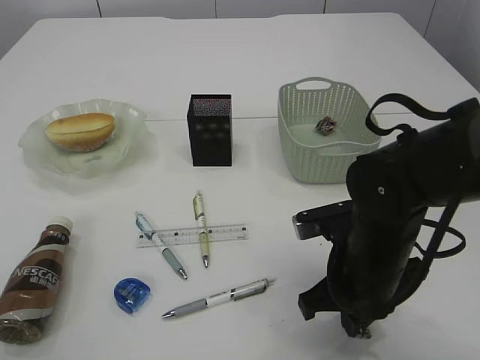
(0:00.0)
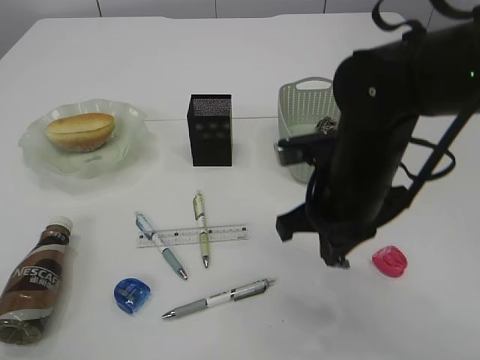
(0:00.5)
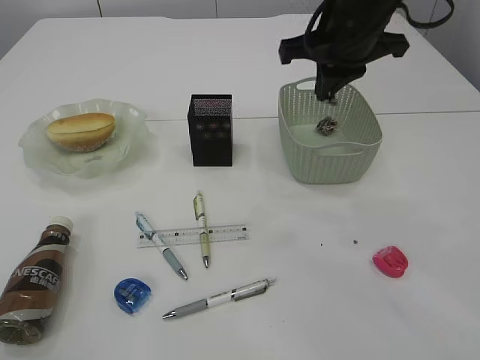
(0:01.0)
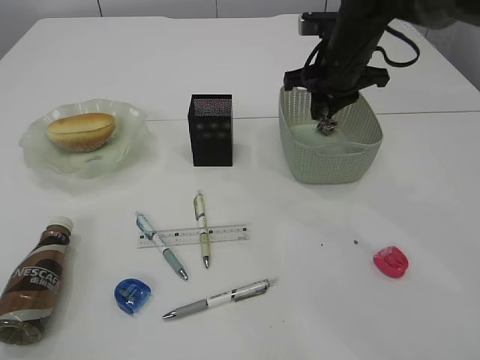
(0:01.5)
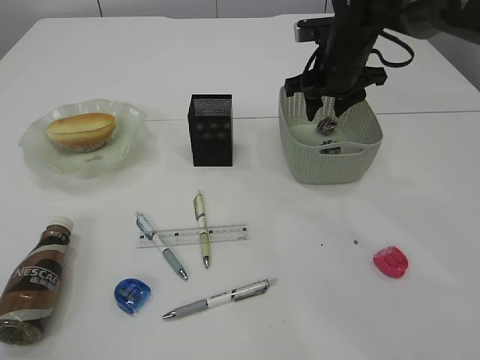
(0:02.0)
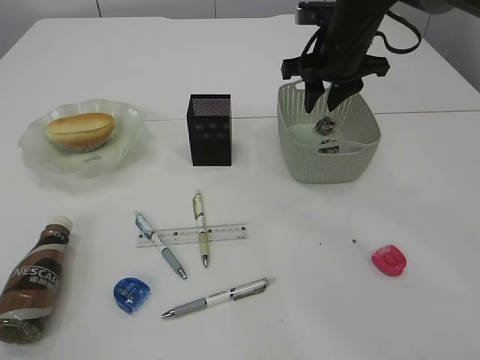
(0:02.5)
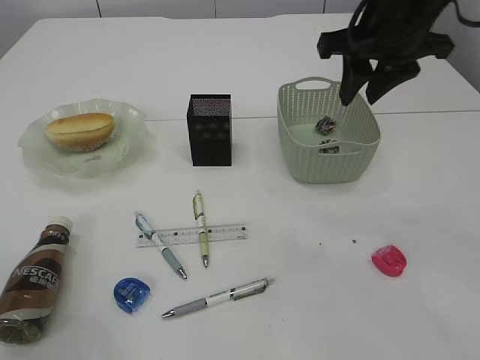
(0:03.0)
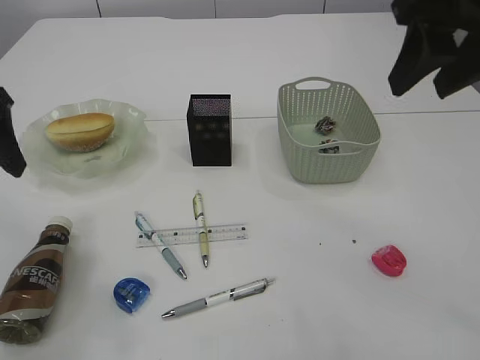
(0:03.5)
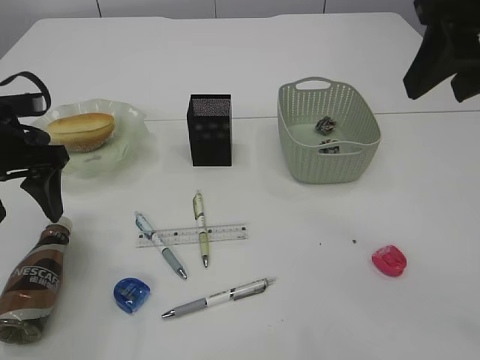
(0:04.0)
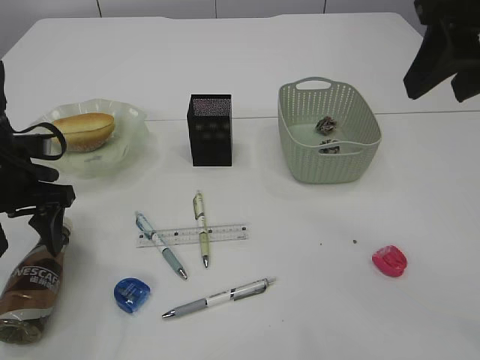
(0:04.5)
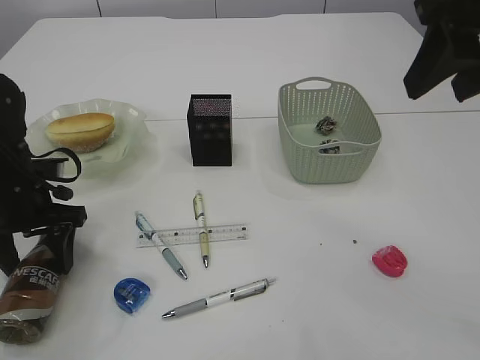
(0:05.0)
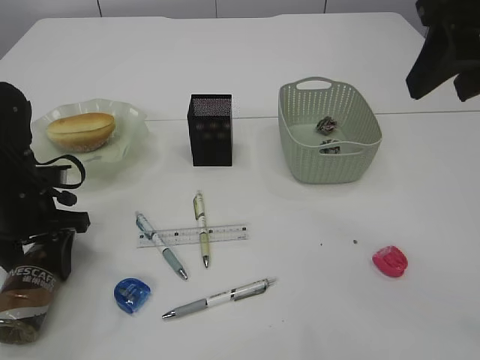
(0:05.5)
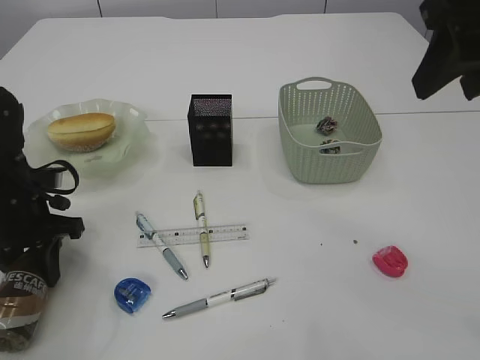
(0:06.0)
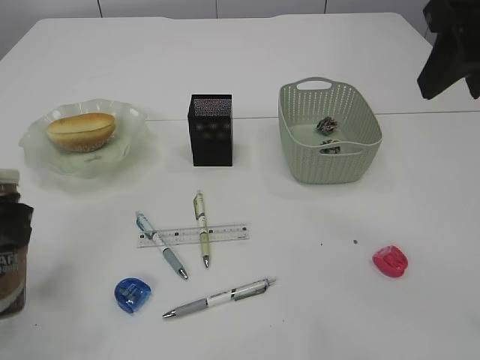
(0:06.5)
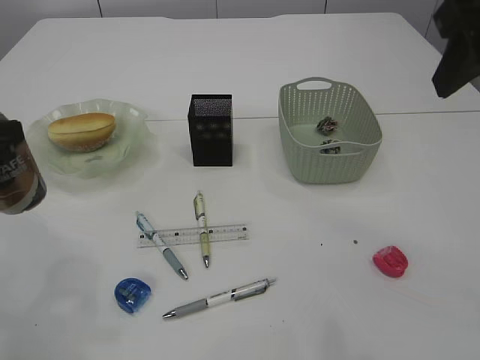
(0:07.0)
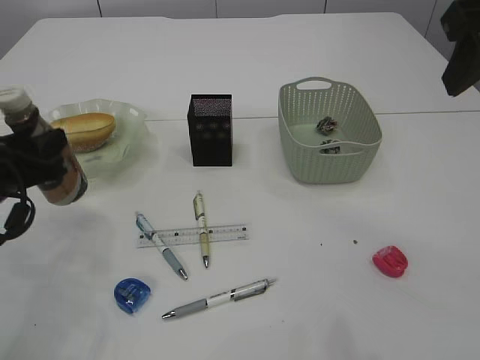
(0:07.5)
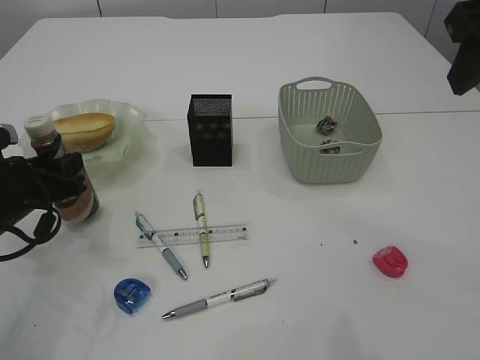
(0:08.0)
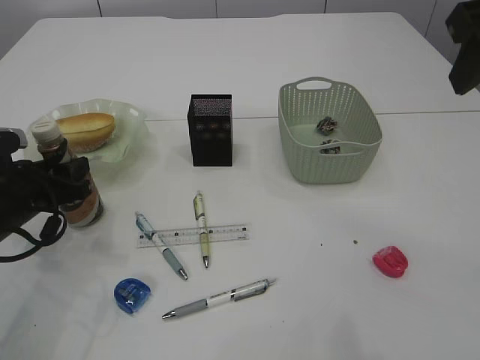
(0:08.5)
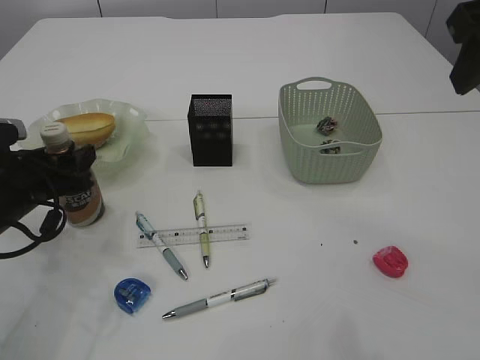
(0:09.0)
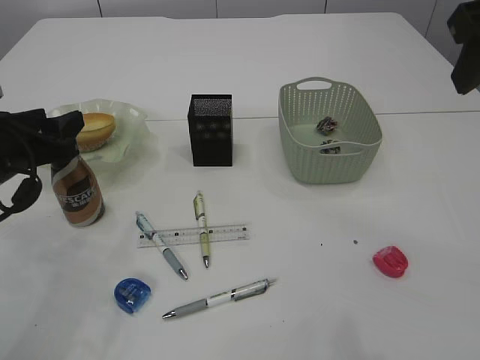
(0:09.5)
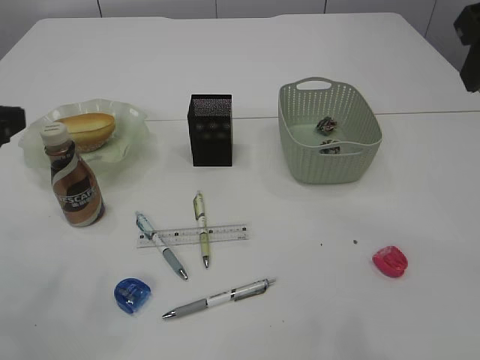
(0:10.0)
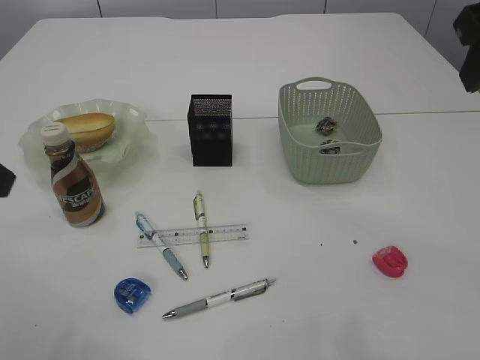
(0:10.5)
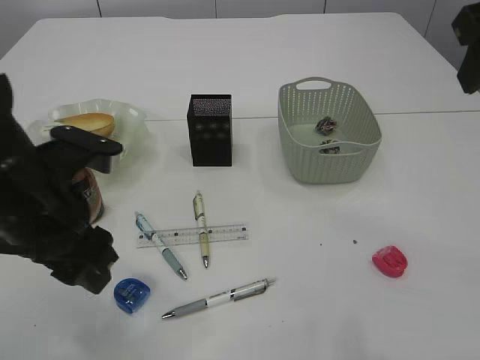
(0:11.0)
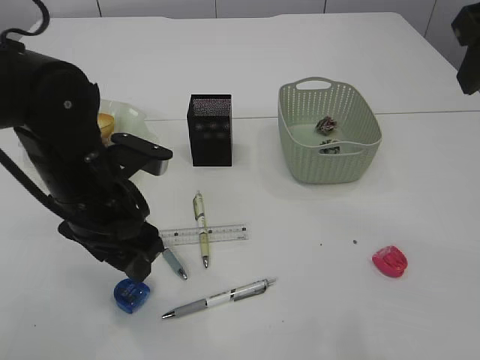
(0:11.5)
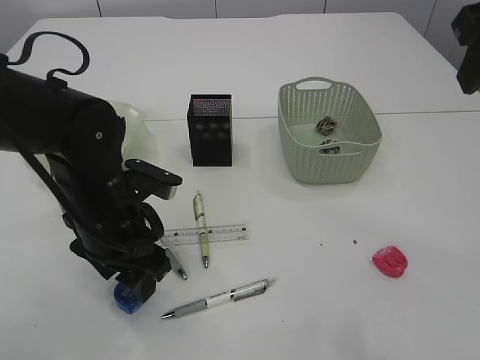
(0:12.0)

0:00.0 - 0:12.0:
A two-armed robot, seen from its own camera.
Step, 0:00.5 - 0:02.5: Place the waste paper in the basket.
Step, 0:03.0 - 0:06.0: Pick up the bottle with the left arm.
Step, 0:06.5 - 0:09.5: Place the bottle.
0:00.0 - 0:02.0: The right gripper goes about 25 cm forward and upward, and opens.
0:02.0 - 0:04.0: The left gripper shifts approximately 25 cm downward and forward. The right gripper is displaced backward and upward by some 30 cm.
0:04.0 - 0:06.0: The left gripper heads downward, covering about 10 cm, and closes up.
0:06.0 - 0:08.0: The left gripper travels upward and back again, roughly 10 cm each way.
0:08.0 - 0:10.0: The left gripper heads upward and backward, covering roughly 15 cm.
0:10.0 - 0:12.0: The left gripper is displaced to the right and downward by approximately 20 cm.

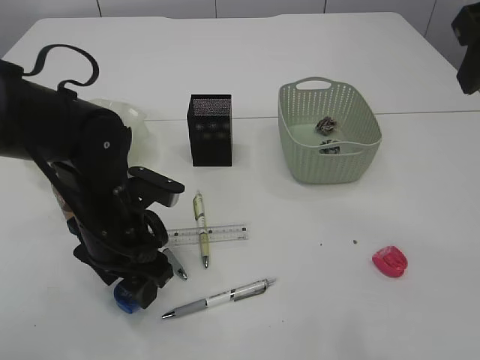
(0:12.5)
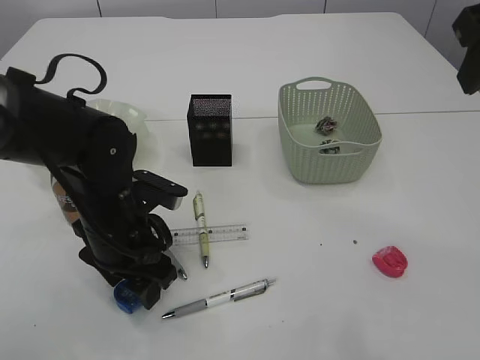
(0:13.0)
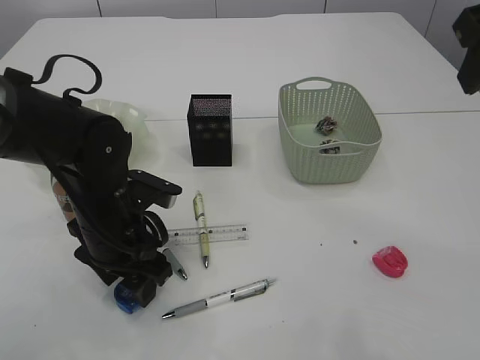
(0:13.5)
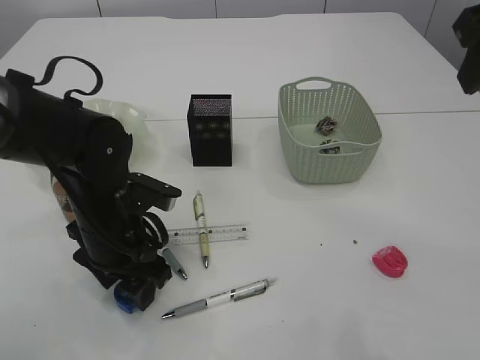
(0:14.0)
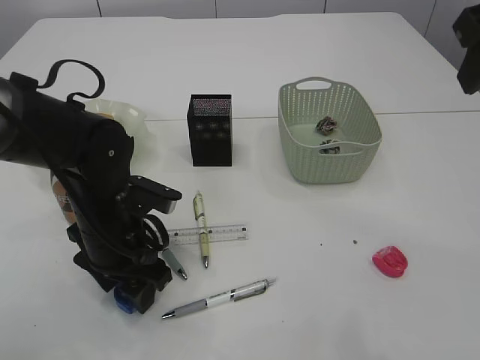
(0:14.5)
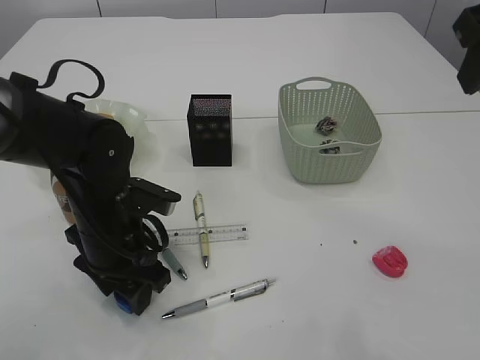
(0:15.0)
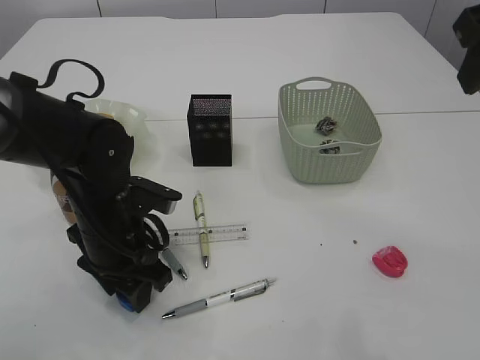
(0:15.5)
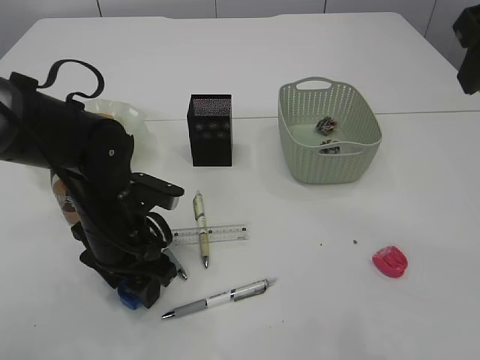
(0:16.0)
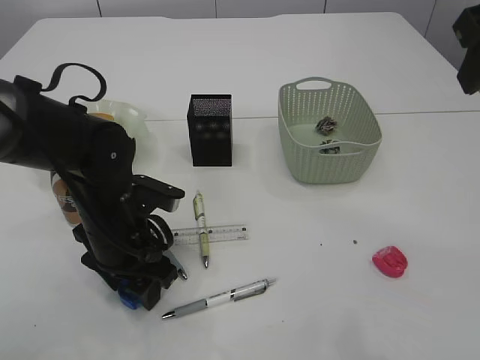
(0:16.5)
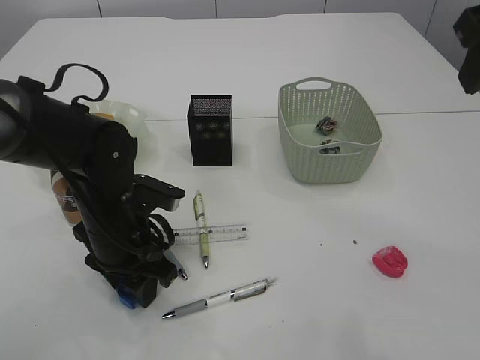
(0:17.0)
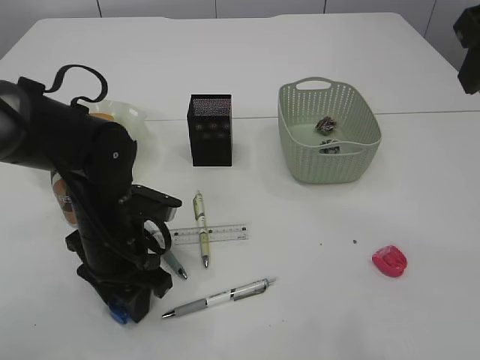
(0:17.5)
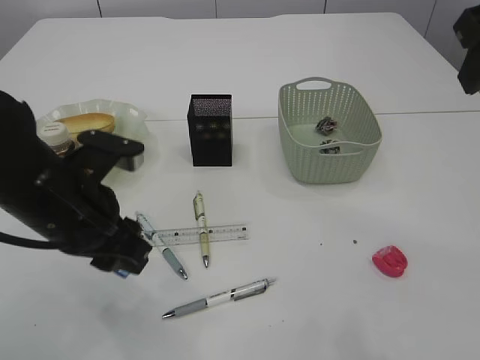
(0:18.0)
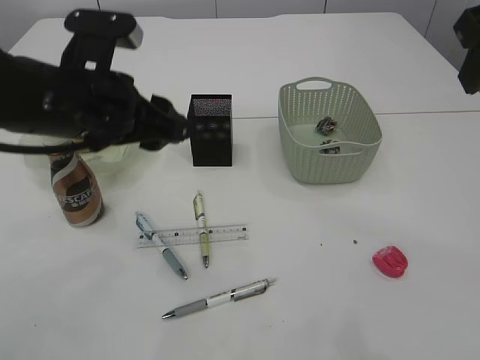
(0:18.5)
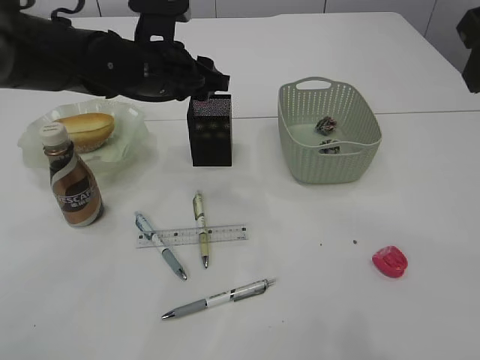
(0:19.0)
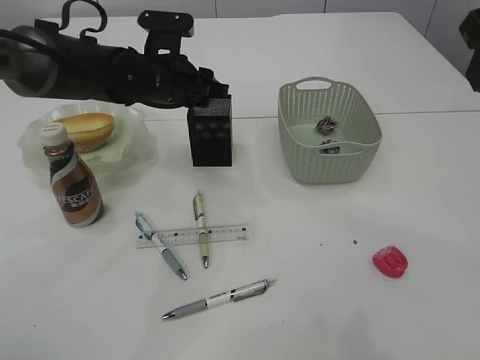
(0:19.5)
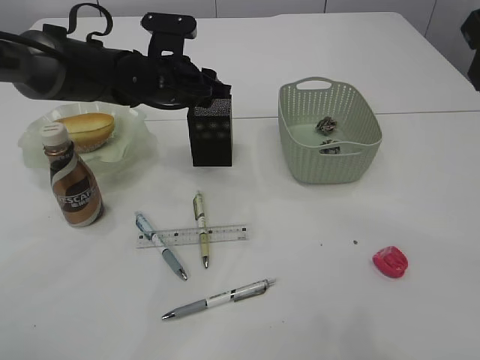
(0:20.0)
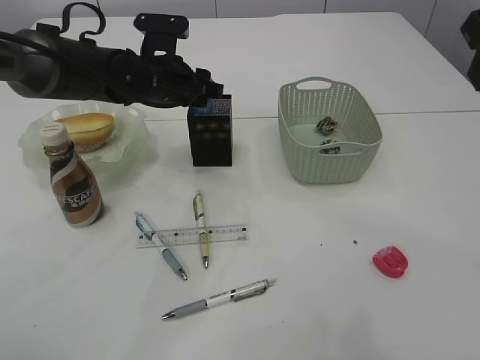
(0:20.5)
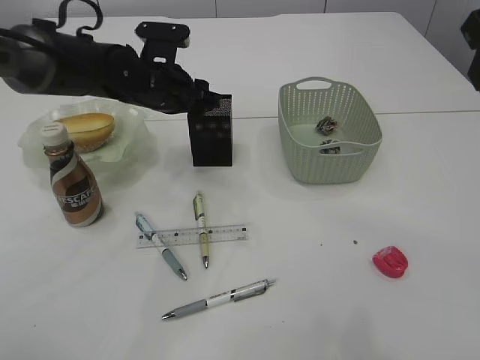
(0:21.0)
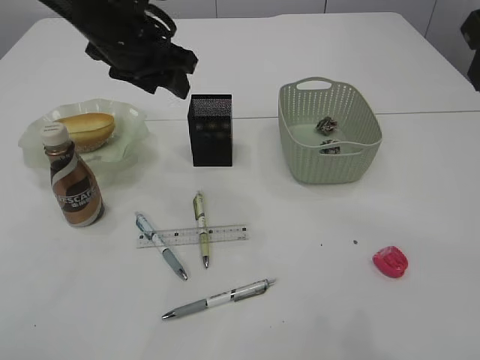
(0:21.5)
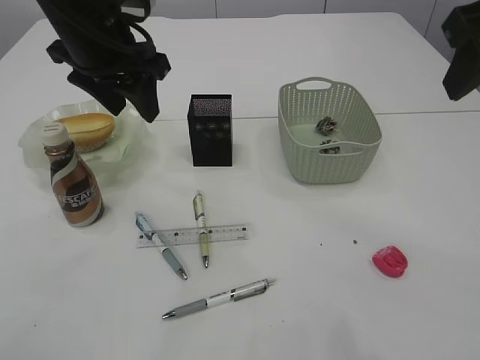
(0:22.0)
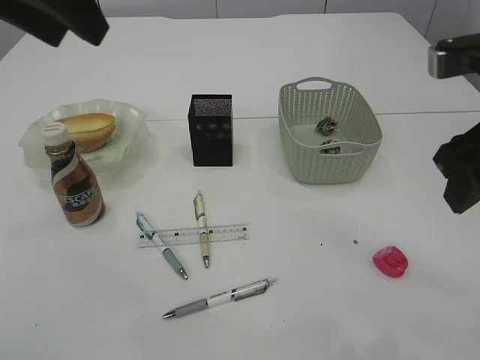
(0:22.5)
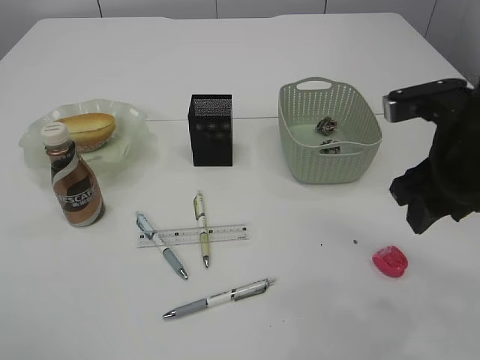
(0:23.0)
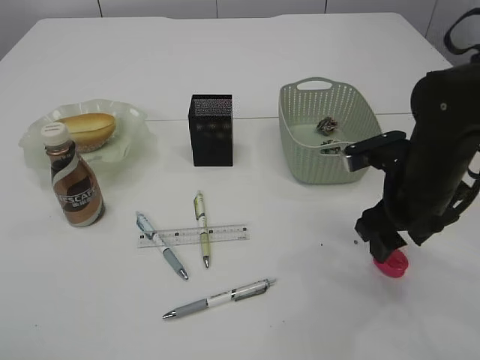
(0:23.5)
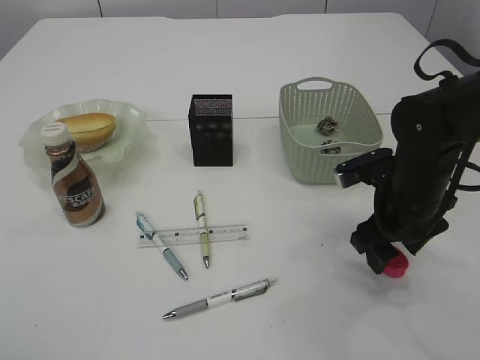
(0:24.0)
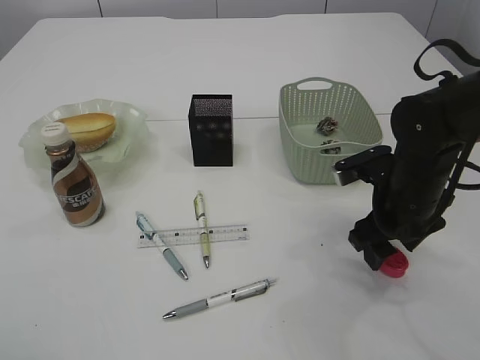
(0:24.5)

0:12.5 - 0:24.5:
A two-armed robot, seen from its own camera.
Step, 0:12.5 - 0:17.5: Pick up the blue pencil sharpener.
Step, 0:18.0 - 0:21.0: Place the blue pencil sharpener into the pen holder.
0:12.5 - 0:14.5: There are only small adjustments of the grippers.
0:14.5 - 0:16.5: Both grippers stay put.
0:16.5 - 0:18.5: The left gripper travels upward by roughly 15 cm.
0:18.5 - 0:20.5: The left gripper travels forward by approximately 15 cm.
0:20.5 - 0:22.5: The right gripper goes some 10 cm downward, while the left gripper shifts about 30 cm upward and backward.
0:22.5 - 0:24.5: The right gripper heads downward and forward, covering roughly 20 cm; the left gripper shifts approximately 15 cm backward and to the left.

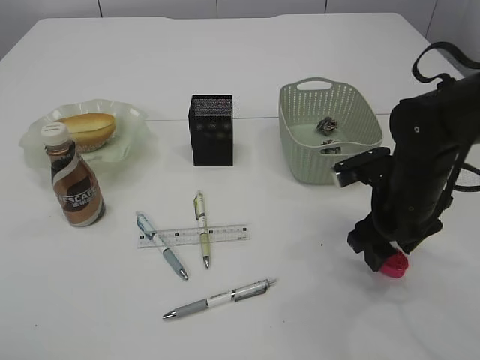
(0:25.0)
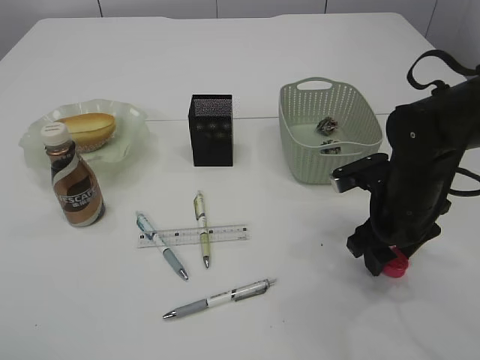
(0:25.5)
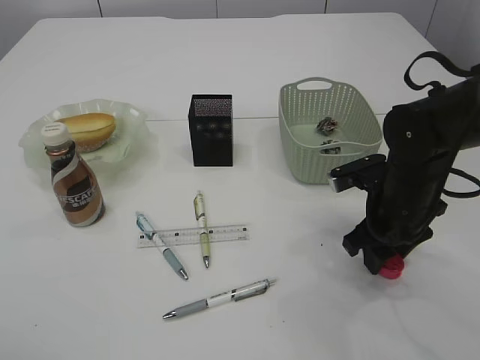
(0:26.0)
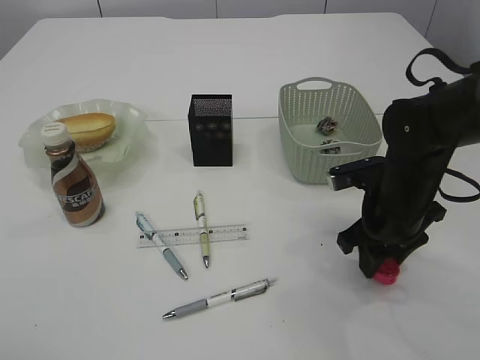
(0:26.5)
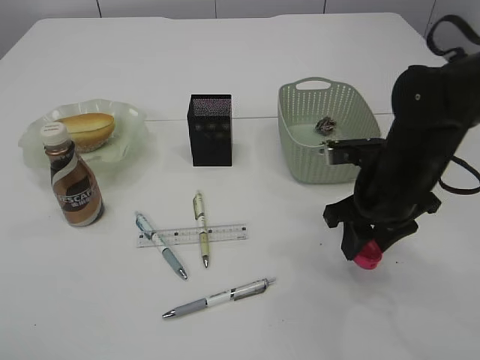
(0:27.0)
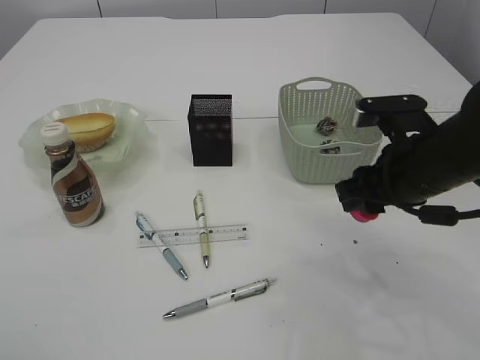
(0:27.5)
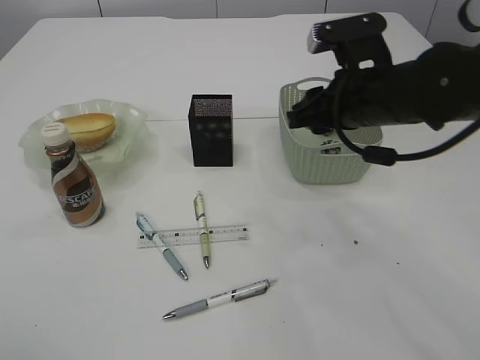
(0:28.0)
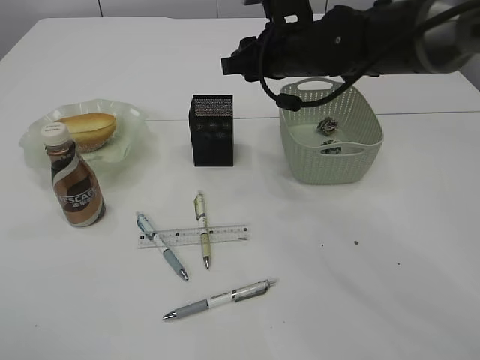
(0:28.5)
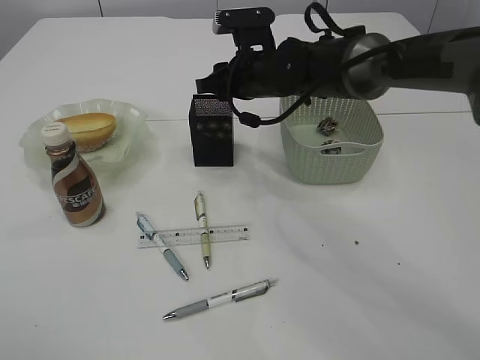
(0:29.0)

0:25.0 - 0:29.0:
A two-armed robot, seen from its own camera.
Step, 0:25.0 - 0:27.0: Pick up the red pencil sharpener.
0:25.0 - 0:27.0: The grippers make only small movements.
0:27.0 - 0:29.0: The right gripper travels forward and to the left by about 20 cm.
